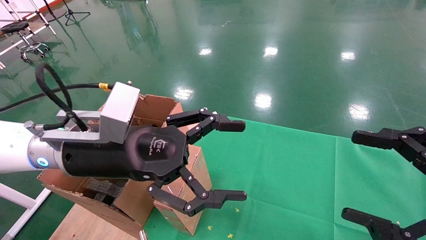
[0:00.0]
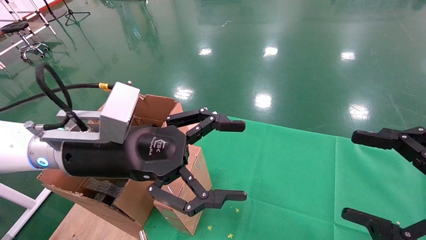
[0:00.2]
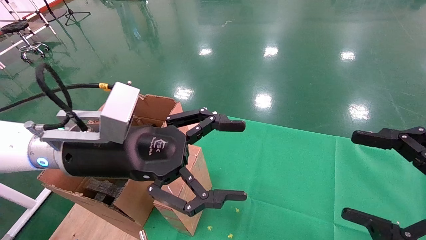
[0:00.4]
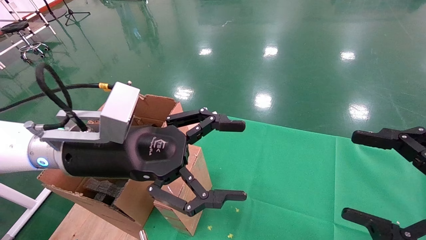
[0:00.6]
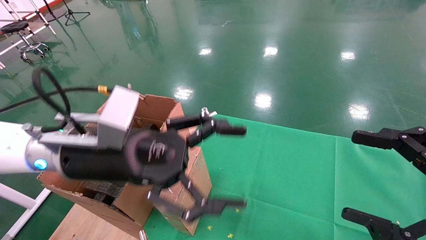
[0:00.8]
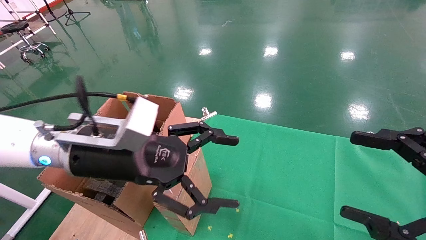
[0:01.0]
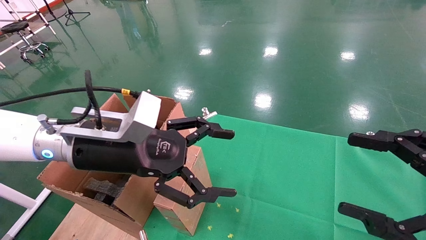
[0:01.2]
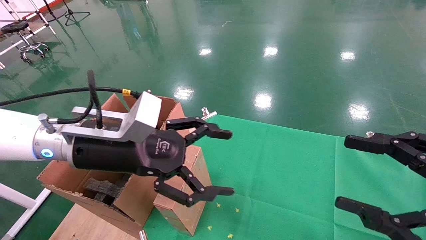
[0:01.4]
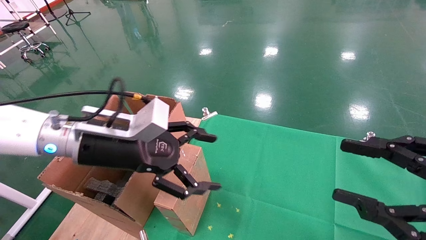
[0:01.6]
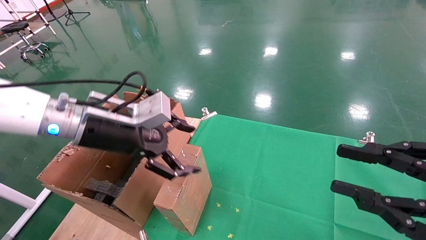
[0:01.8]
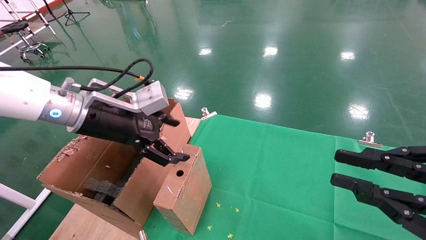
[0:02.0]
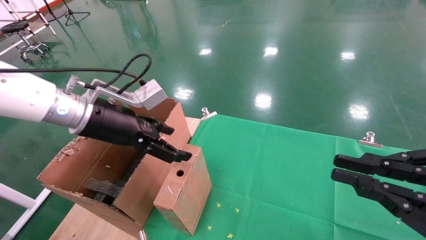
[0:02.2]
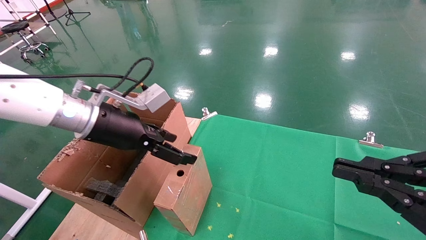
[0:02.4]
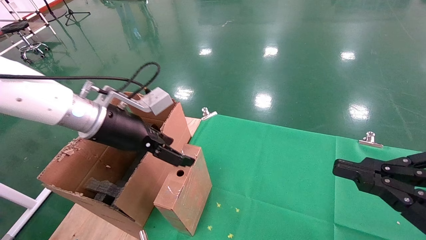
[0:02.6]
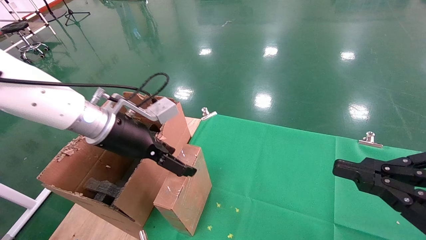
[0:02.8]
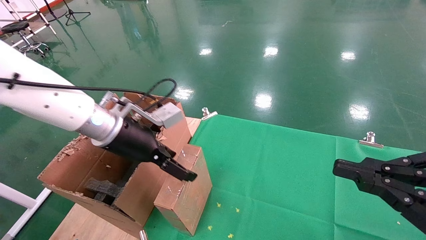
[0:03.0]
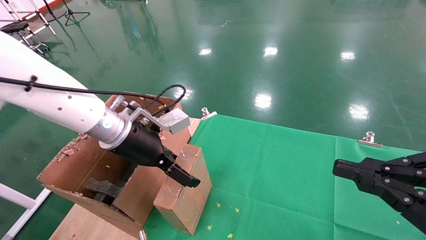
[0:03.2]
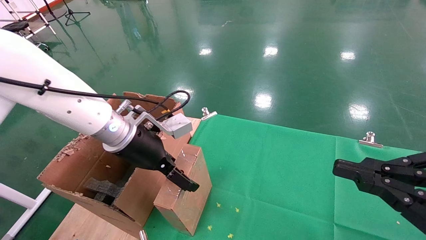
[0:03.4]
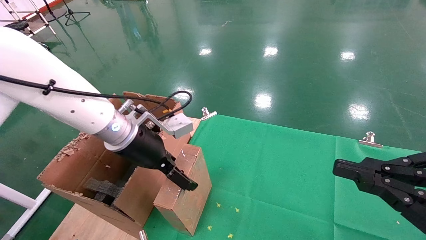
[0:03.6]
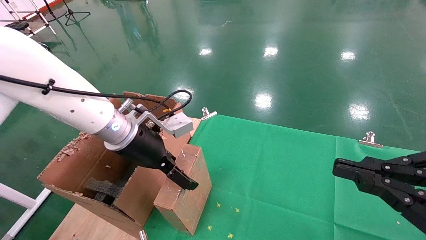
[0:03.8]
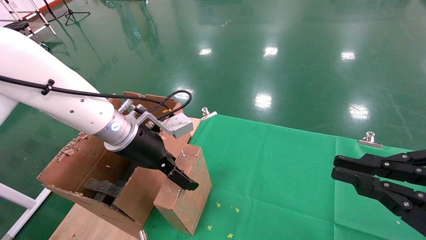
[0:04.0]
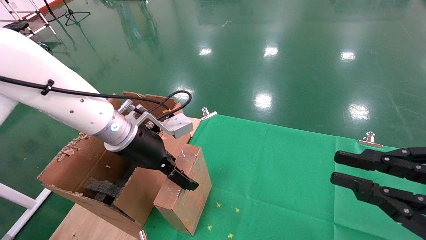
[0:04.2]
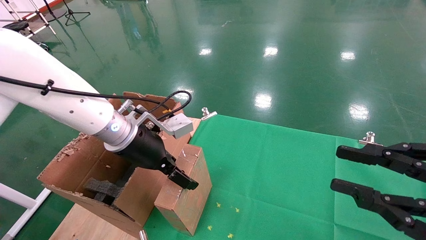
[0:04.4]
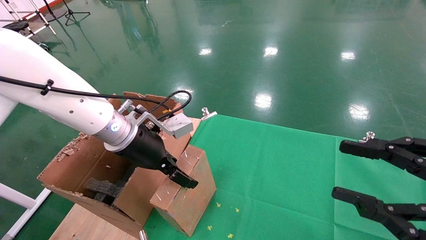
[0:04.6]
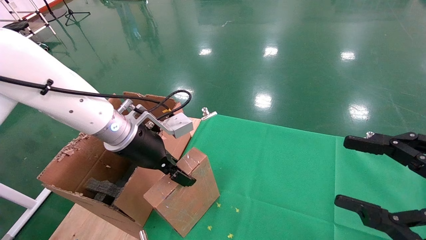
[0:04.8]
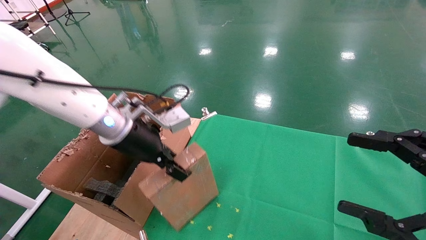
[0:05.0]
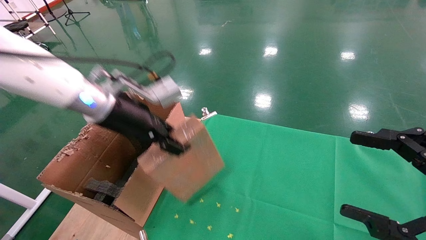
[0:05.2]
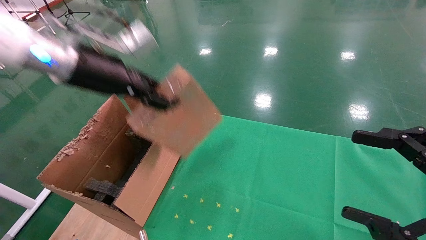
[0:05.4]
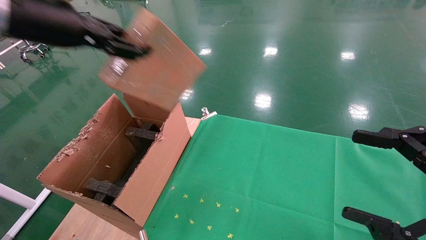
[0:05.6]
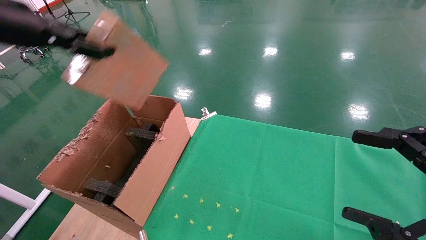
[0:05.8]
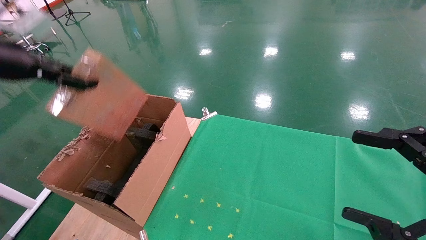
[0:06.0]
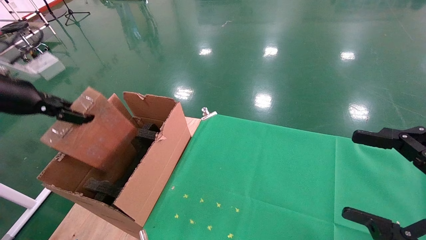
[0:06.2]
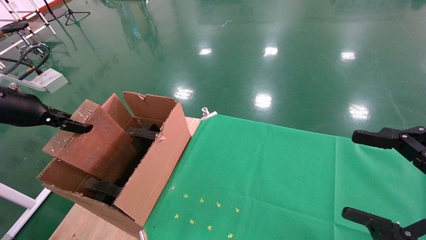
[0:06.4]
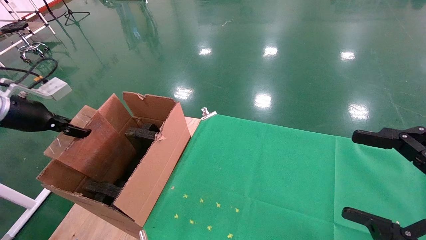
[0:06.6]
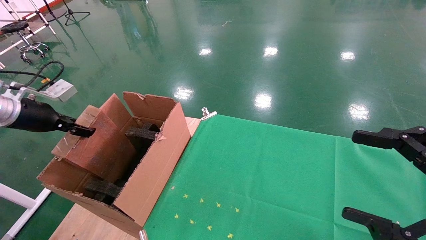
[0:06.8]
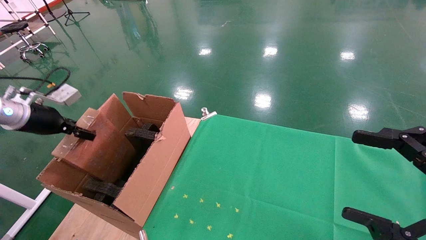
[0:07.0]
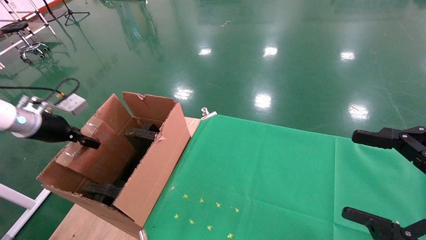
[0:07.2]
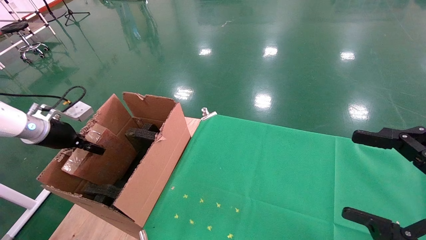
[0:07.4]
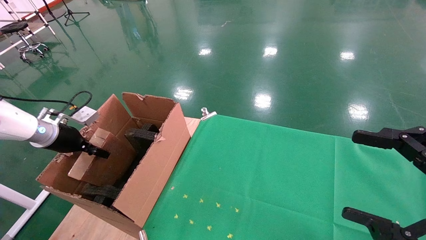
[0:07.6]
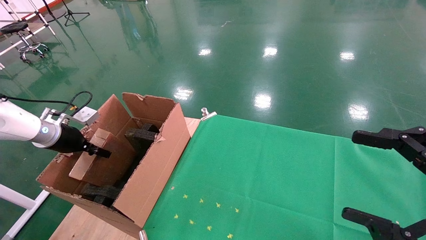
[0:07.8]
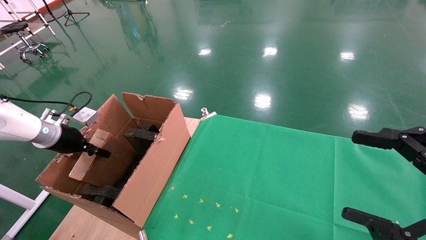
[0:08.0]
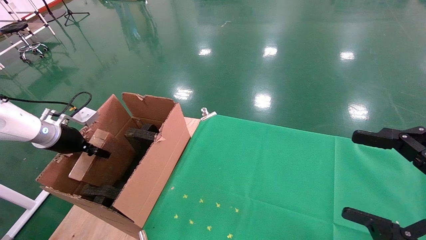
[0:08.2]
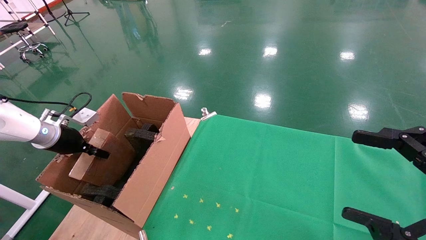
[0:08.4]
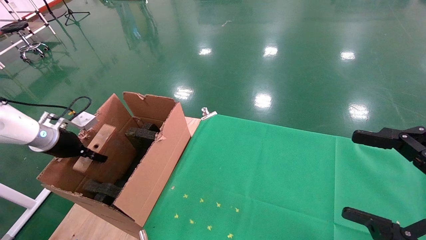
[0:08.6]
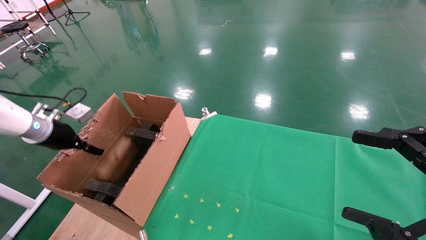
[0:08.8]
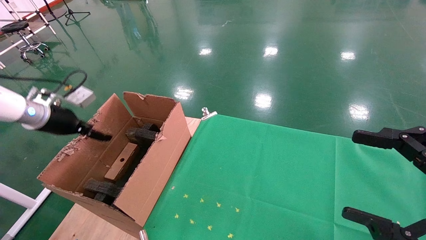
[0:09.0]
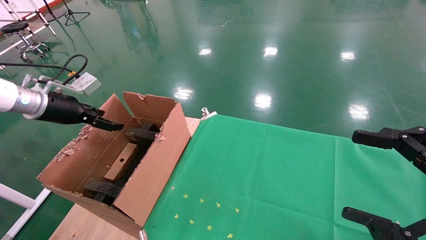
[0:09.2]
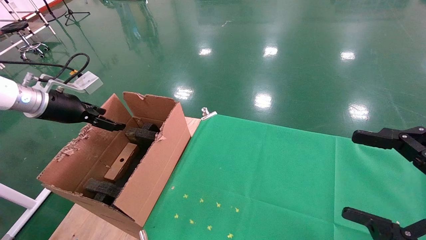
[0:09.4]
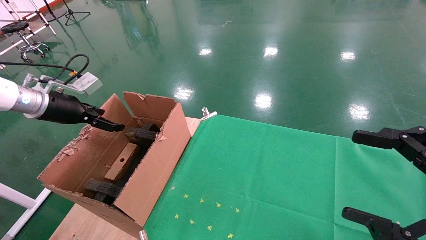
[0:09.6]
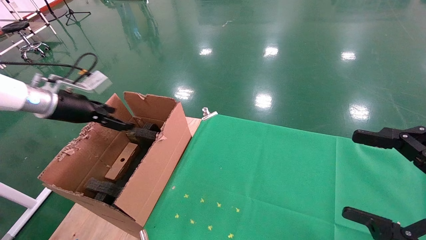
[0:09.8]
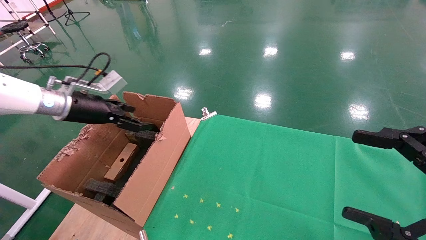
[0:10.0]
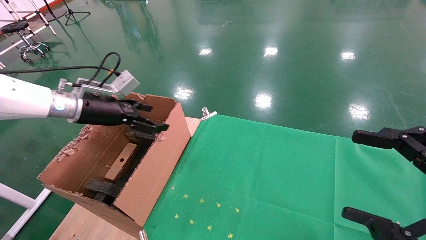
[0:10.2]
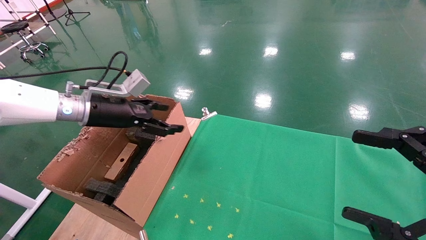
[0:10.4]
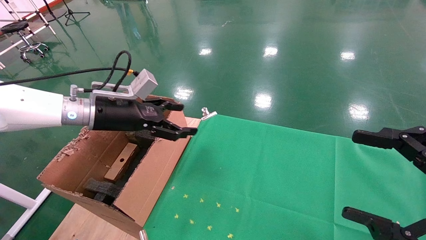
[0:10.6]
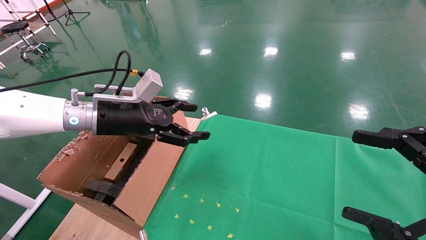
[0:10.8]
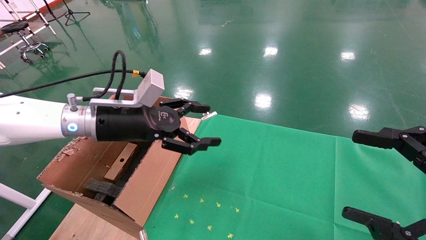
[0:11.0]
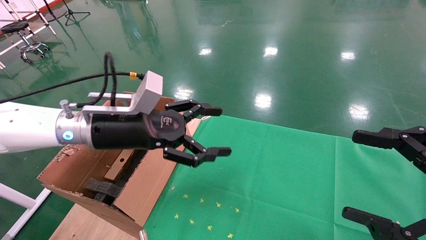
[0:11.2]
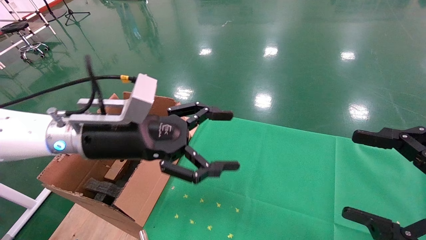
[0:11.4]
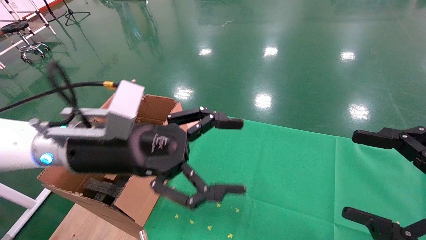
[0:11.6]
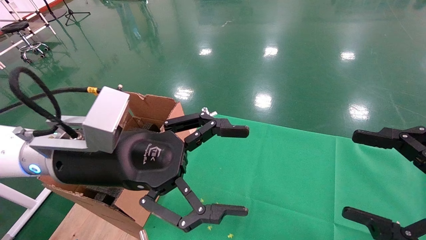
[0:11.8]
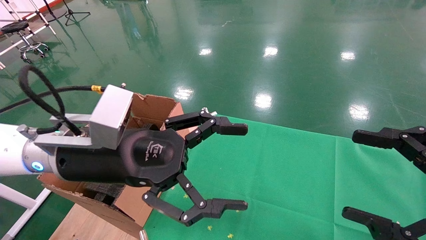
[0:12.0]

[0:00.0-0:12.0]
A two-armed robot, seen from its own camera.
Task of the whole recording: using a robotic arm to pick up a cardboard box and palace it the carton.
Step, 0:01.0 to 0:04.8: Pick up the mouse and the power cord paper box.
Step, 0:05.0 to 0:08.4: Place the mouse and the power cord paper box into the container.
0:01.6 to 0:03.0: The right gripper closes its fingers.
0:03.0 to 0:04.4: The grippers stay close to where they were, moving slightly.
0:04.4 to 0:06.0: The left gripper shifts about 25 cm to the left and upward, and closes; the right gripper opens up.
0:06.0 to 0:07.6: The left gripper shifts roughly 20 cm downward and forward.
0:07.6 to 0:09.0: The left gripper shifts some 5 cm upward, and opens.
0:09.0 to 0:10.4: The left gripper goes about 15 cm to the right, and opens up.
0:10.4 to 0:12.0: The left gripper goes approximately 20 cm backward and to the right.

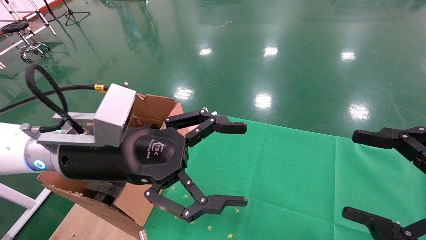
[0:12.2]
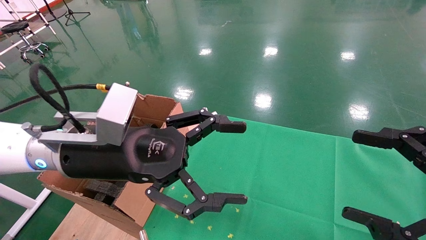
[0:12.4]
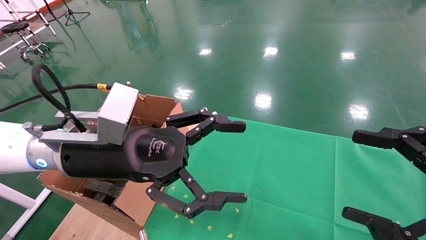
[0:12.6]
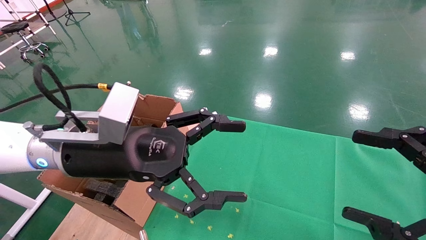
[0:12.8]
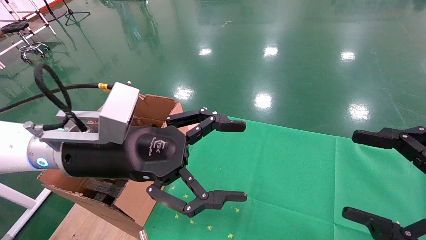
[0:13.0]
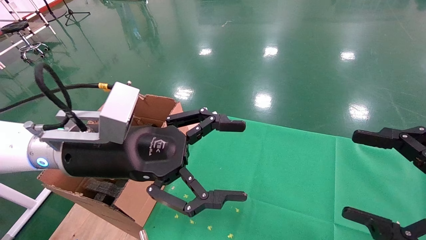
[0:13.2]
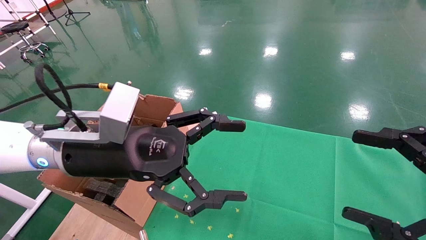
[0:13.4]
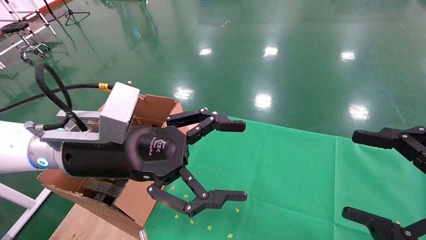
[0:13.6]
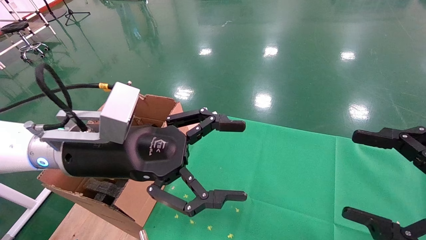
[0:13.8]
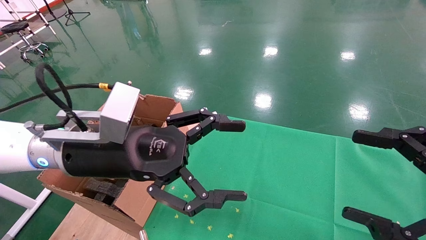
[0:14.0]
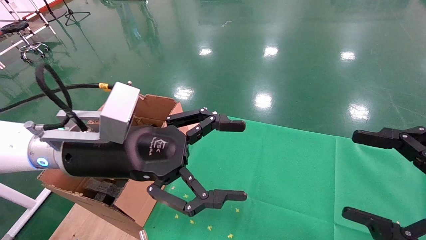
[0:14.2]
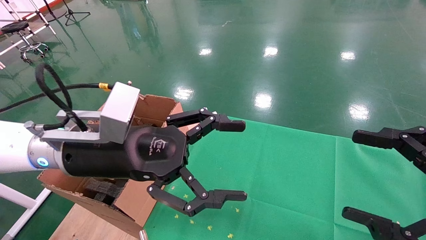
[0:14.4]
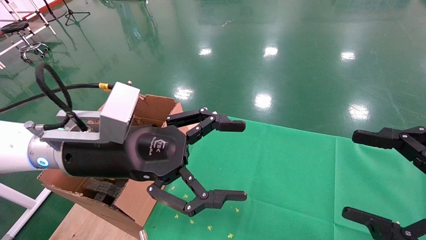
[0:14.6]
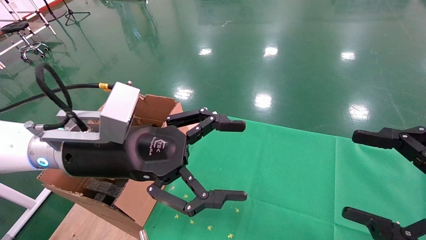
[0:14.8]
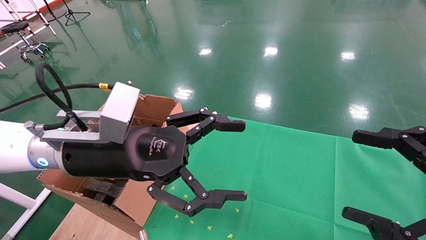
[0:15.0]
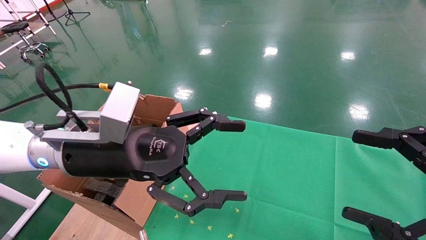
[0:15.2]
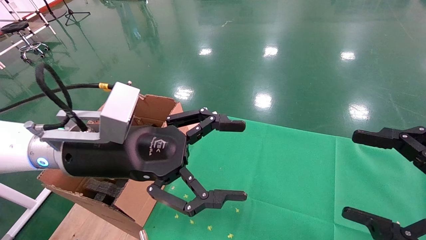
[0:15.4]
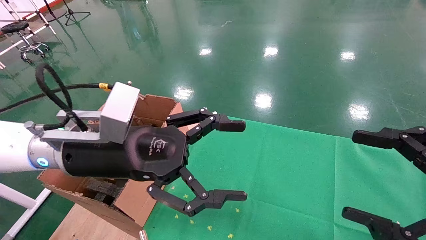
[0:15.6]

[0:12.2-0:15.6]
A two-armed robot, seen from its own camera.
Task of the whole recording: using a robotic arm to pick up a cardboard box and palace it the carton.
0:12.2 to 0:15.6: Both grippers stay put.
